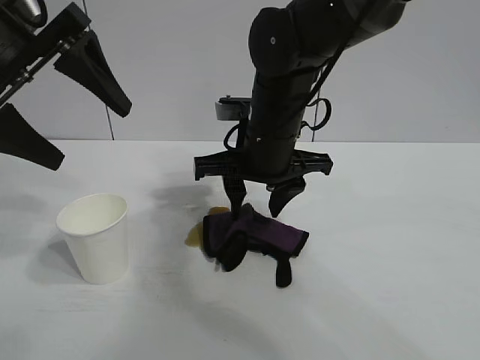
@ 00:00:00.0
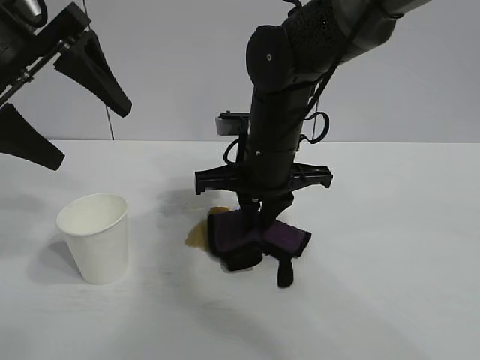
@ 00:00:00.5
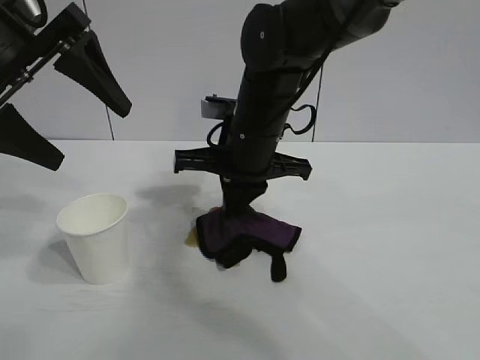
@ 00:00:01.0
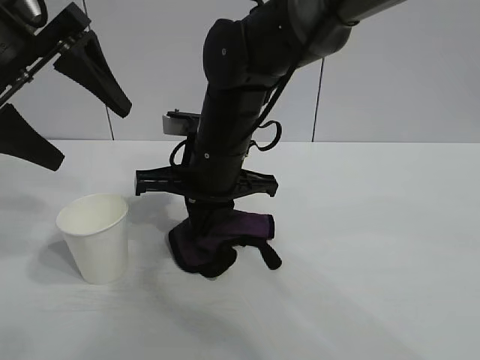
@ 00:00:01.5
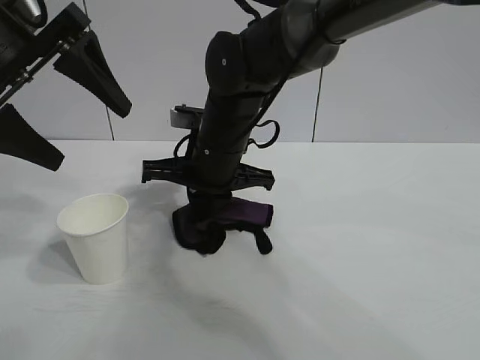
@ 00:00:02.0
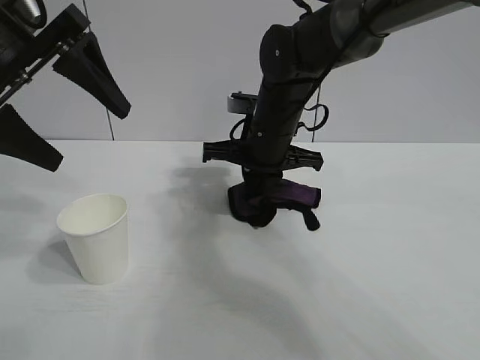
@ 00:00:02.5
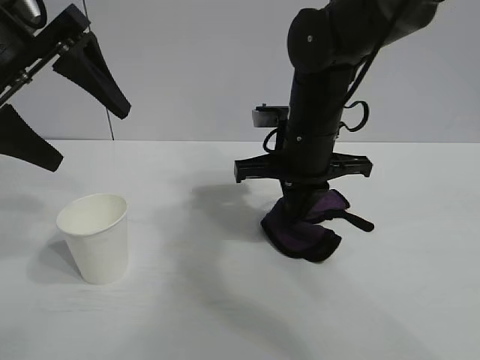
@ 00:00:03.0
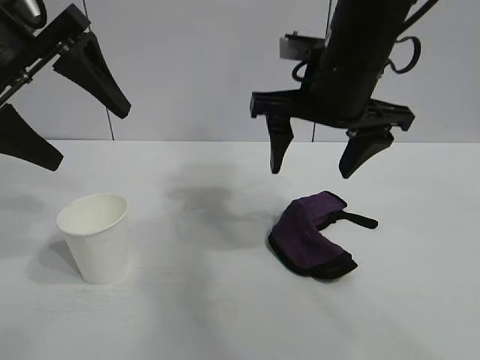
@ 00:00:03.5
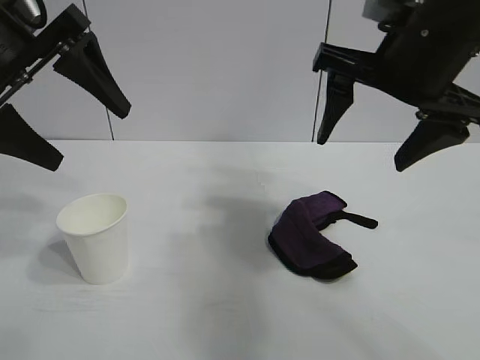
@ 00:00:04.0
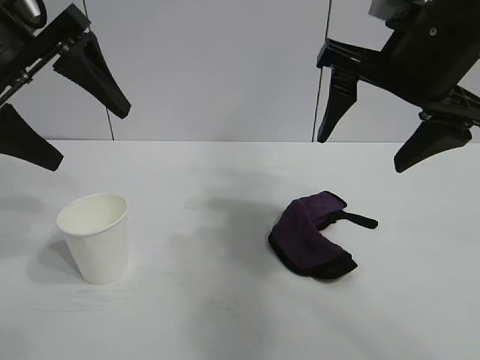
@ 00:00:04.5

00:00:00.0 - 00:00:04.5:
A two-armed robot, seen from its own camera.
Task of the whole recording: the left gripper pick up the fallen cup and place it upright, the right gripper grasp the black rag and wipe the stain on the table, the right gripper put the black rag back in its original position.
Step, 00:00:01.0 - 00:00:02.5: Wipe the stains off the table with the rag with right gripper.
